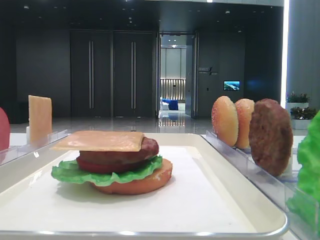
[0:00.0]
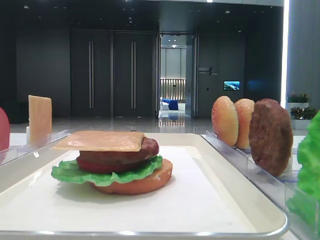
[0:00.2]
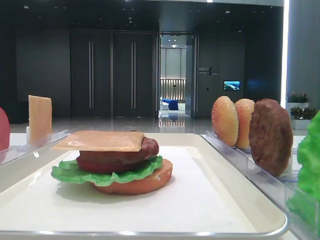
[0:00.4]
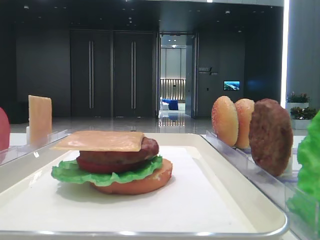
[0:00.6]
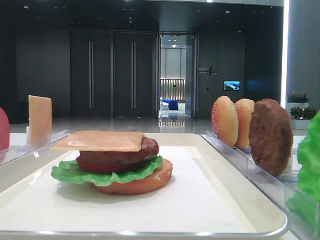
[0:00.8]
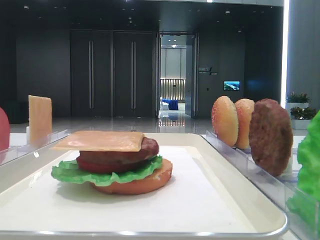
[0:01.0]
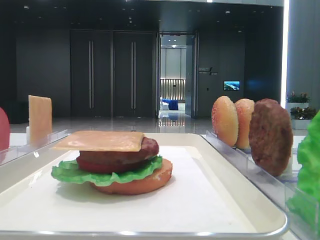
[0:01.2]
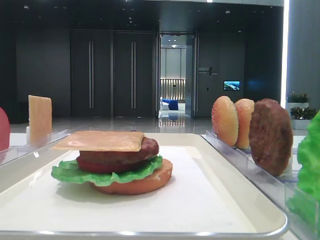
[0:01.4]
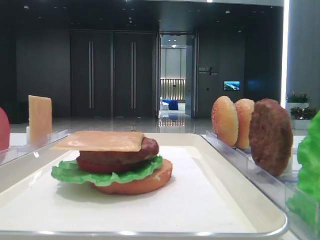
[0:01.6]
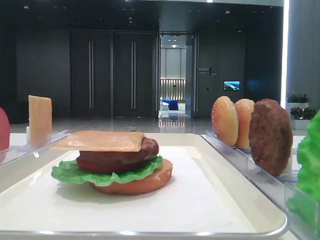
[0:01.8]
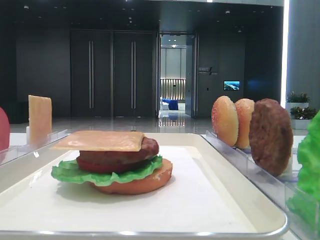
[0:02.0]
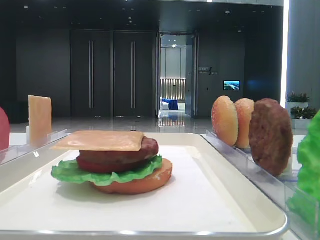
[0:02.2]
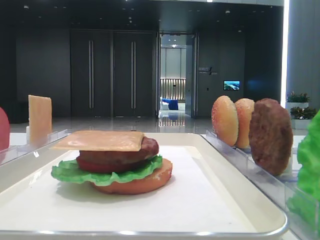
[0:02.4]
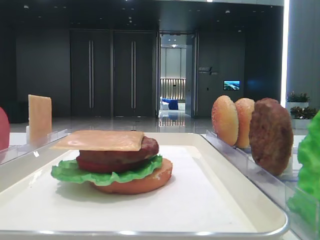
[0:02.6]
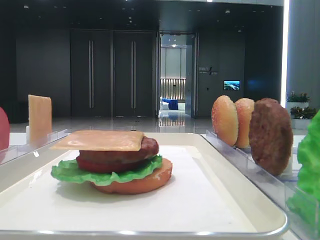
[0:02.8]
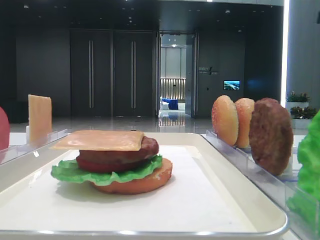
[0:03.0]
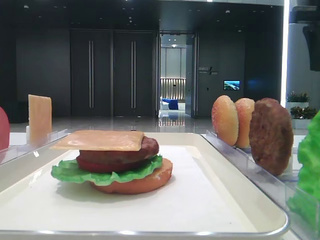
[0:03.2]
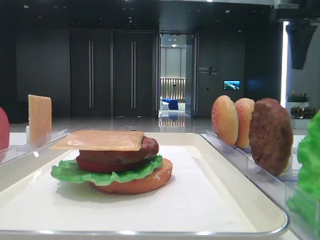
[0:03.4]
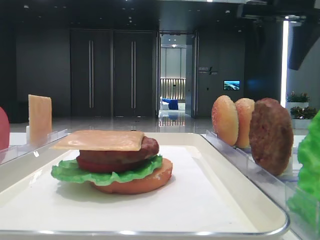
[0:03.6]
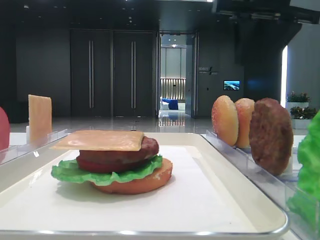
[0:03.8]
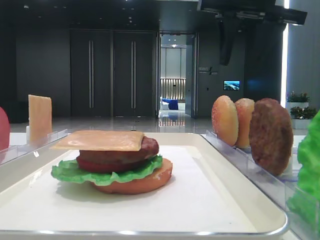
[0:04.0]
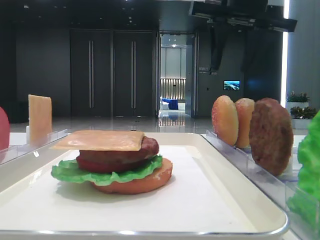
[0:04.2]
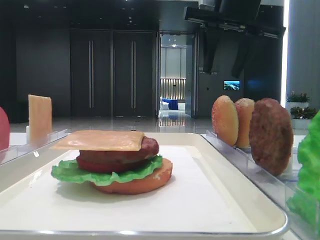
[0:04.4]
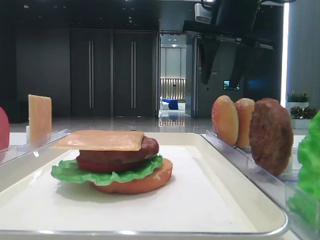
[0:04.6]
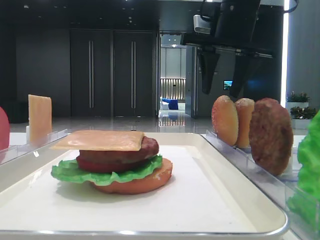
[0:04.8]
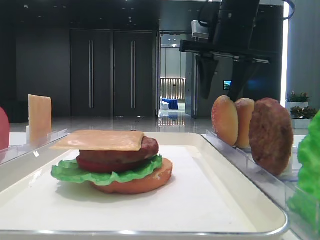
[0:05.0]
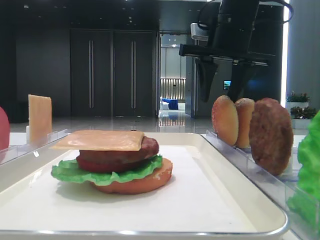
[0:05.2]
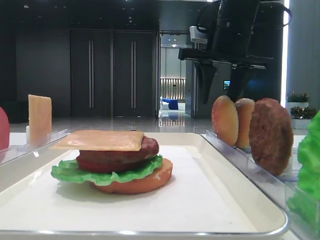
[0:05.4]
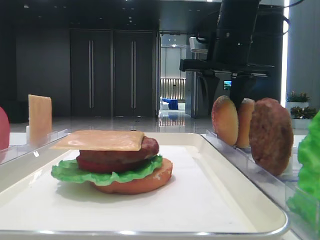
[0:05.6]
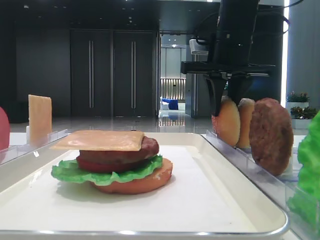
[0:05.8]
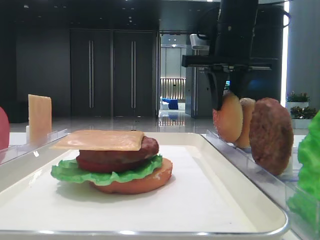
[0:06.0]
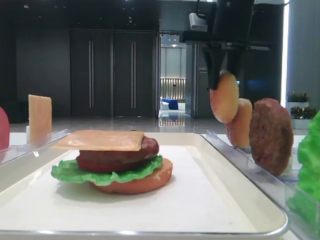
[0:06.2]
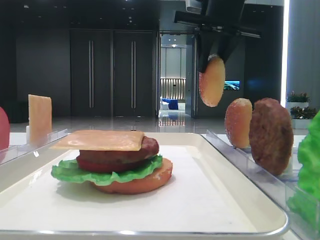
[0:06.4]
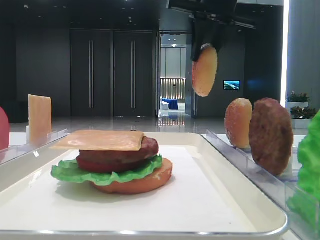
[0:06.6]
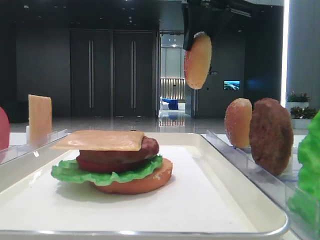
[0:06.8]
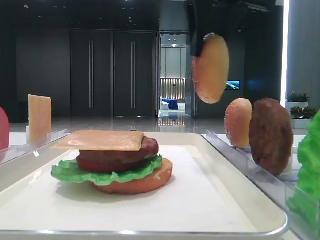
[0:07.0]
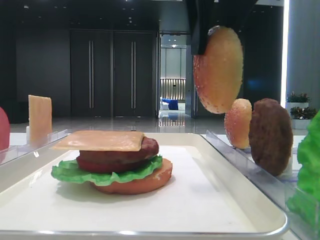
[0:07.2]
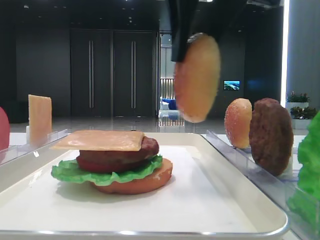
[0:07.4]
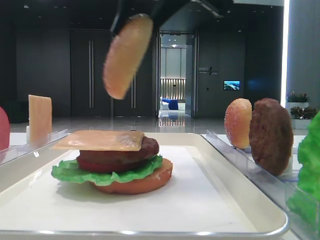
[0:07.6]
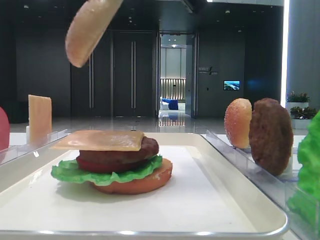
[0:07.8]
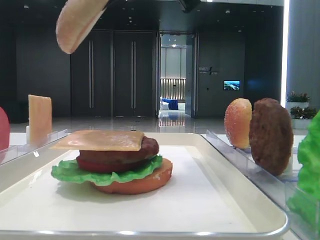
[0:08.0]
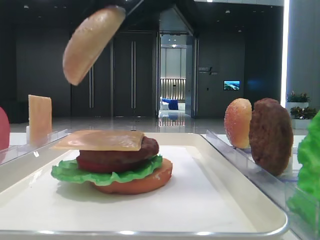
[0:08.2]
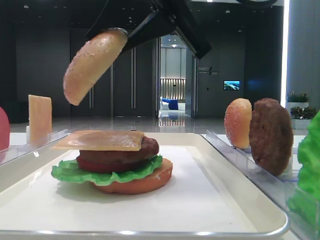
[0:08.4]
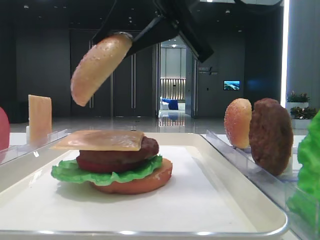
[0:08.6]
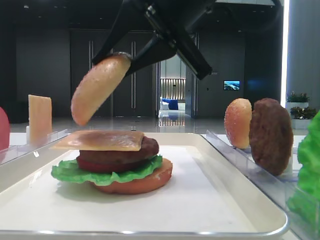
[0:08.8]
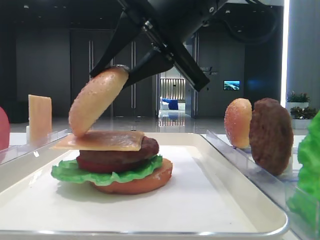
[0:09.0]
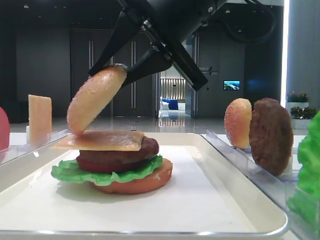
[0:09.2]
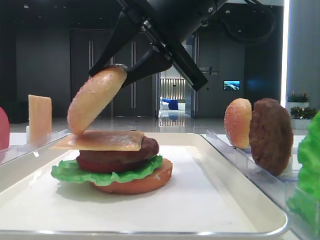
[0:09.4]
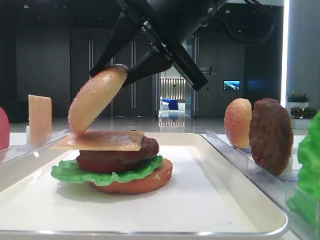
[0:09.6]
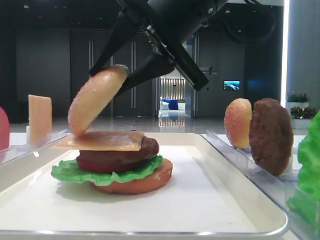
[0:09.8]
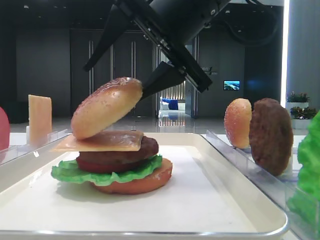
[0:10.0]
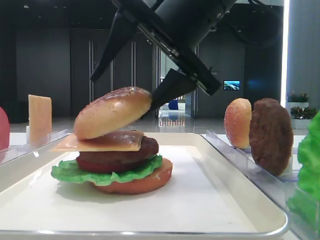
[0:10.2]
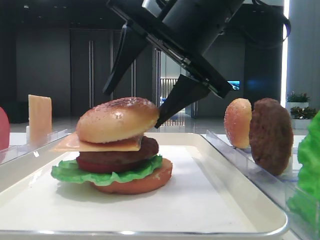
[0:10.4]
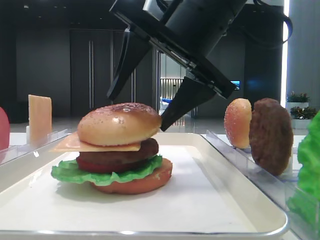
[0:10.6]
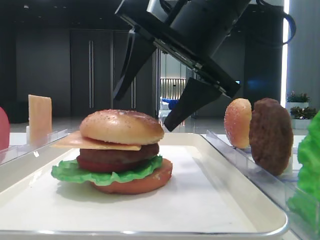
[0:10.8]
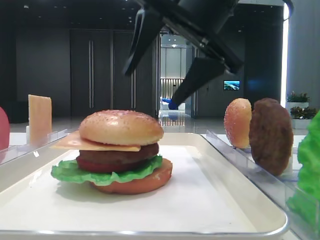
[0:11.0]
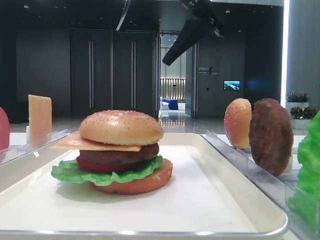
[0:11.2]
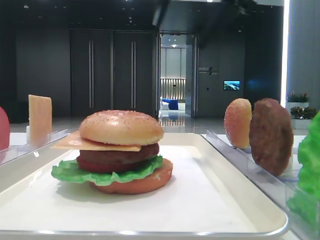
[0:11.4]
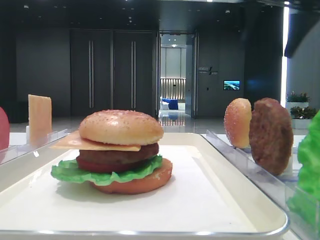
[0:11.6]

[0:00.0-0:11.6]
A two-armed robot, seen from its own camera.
Step, 0:00.0 to 0:05.6: Pick up the top bread slice with the right hand.
Step, 0:05.8 to 0:10.8: Place the top bread slice on the cheese with the right hand.
0:02.8 to 0:04.4: The right gripper travels to the left by approximately 20 cm.
0:04.4 to 0:05.8: The right gripper moves downward, some 5 cm, and closes its fingers.
0:05.8 to 0:07.2: The right gripper goes roughly 20 cm backward and upward.
0:07.2 to 0:08.8: The right gripper goes approximately 5 cm downward.
0:08.8 to 0:10.2: The right gripper opens.
0:10.2 to 0:11.6: The right gripper shifts approximately 20 cm to the right, upward and forward.

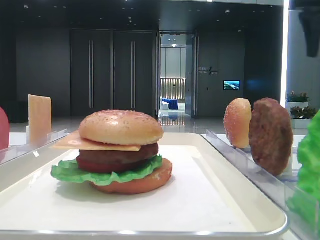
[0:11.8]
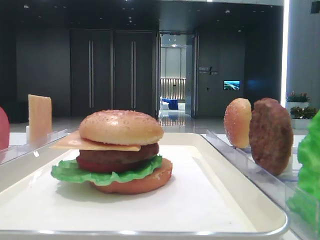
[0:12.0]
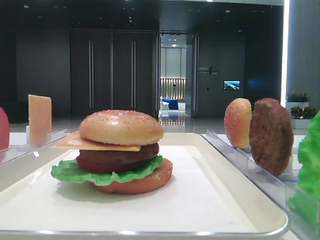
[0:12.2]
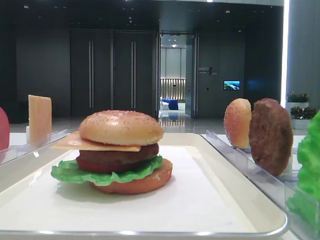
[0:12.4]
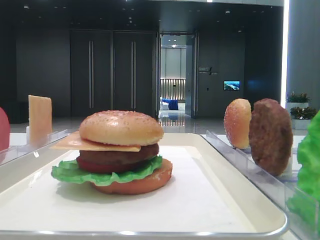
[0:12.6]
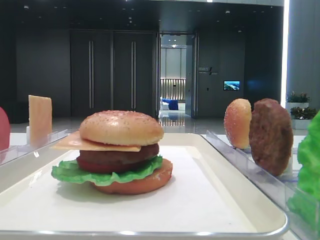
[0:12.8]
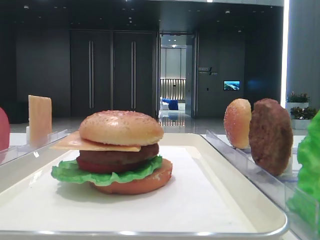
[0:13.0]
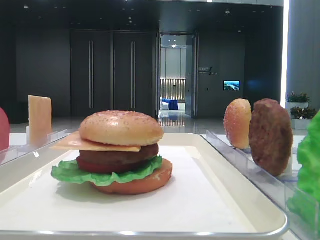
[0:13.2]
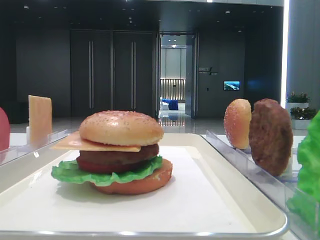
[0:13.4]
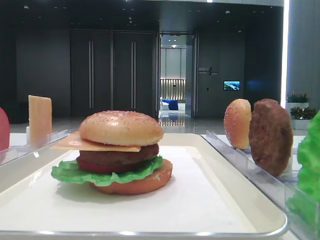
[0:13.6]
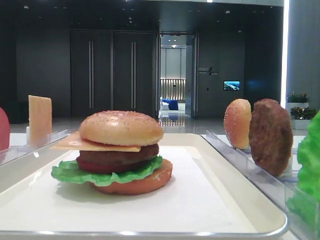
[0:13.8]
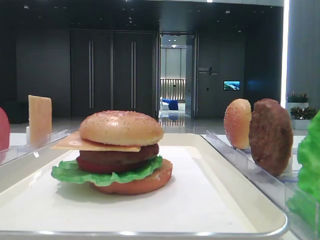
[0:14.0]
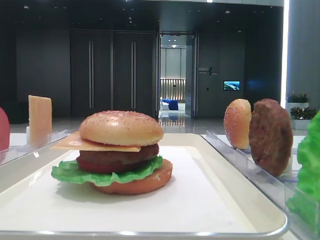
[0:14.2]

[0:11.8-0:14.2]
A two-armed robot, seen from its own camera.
0:11.8 to 0:13.0: The right gripper goes some 35 cm backward.

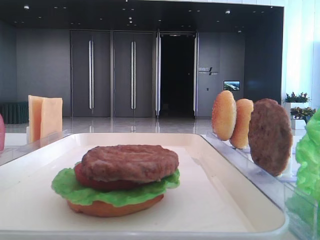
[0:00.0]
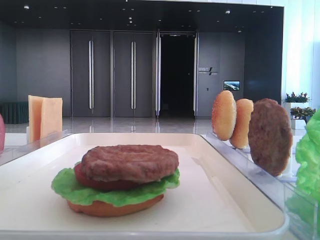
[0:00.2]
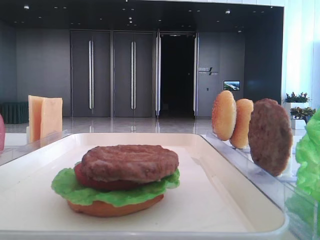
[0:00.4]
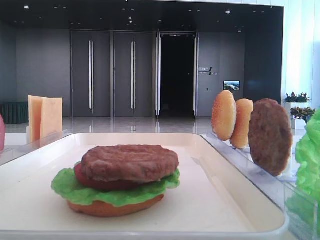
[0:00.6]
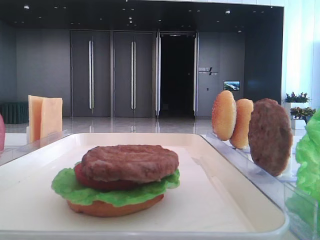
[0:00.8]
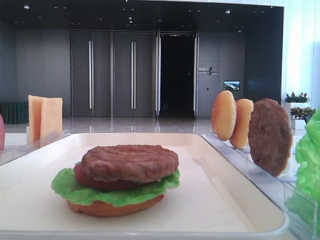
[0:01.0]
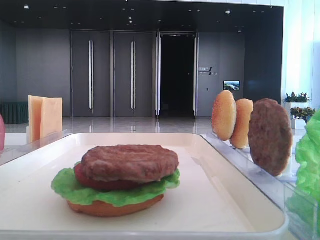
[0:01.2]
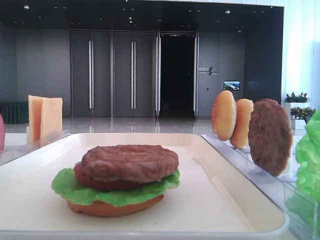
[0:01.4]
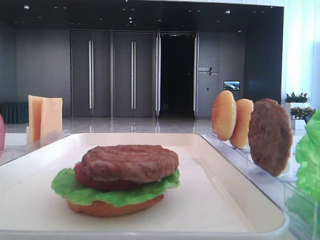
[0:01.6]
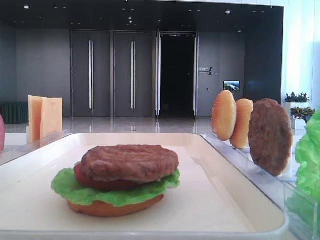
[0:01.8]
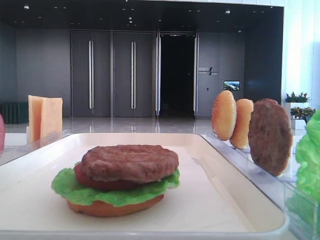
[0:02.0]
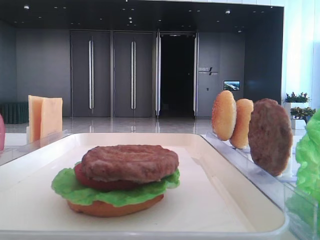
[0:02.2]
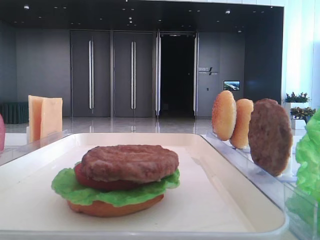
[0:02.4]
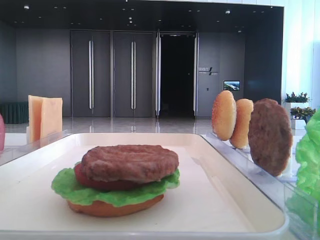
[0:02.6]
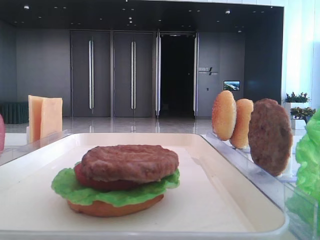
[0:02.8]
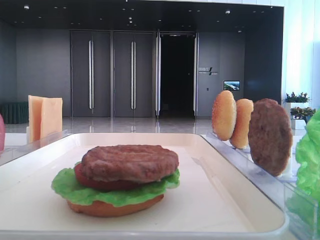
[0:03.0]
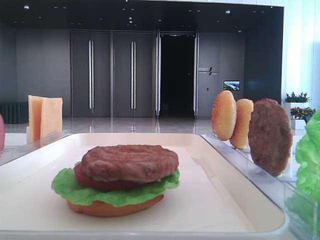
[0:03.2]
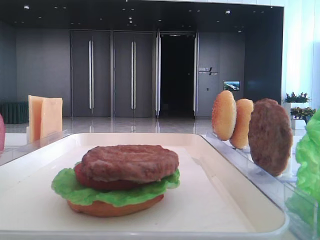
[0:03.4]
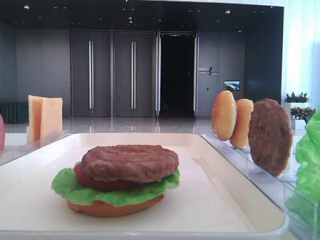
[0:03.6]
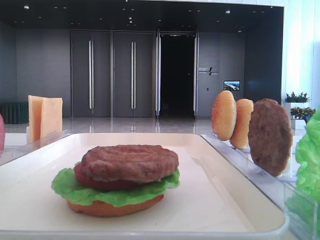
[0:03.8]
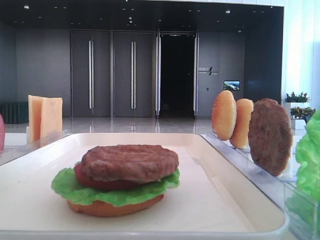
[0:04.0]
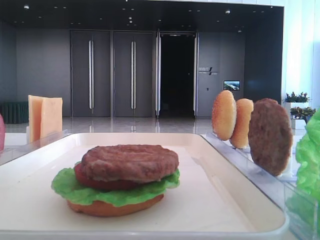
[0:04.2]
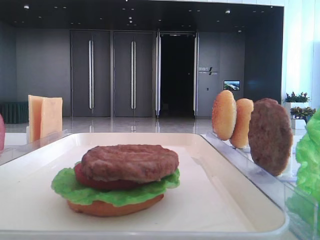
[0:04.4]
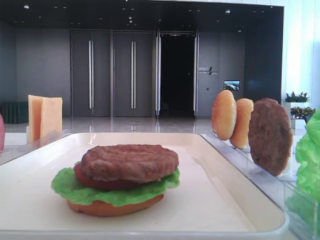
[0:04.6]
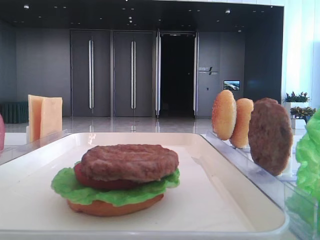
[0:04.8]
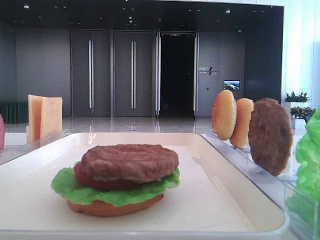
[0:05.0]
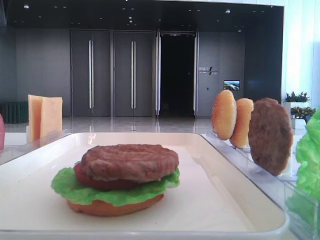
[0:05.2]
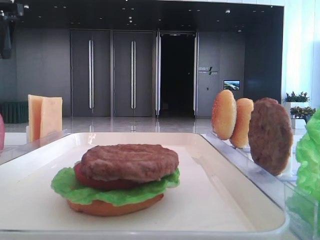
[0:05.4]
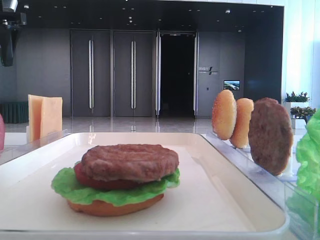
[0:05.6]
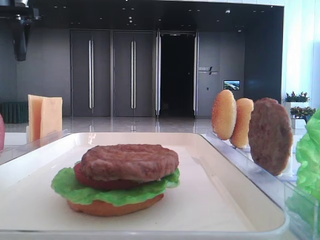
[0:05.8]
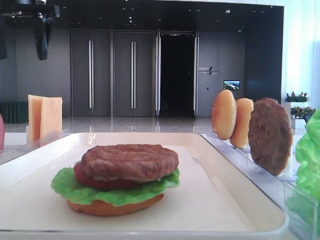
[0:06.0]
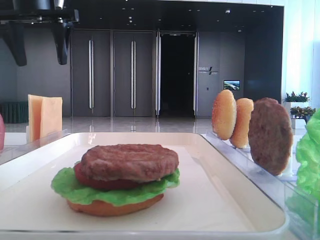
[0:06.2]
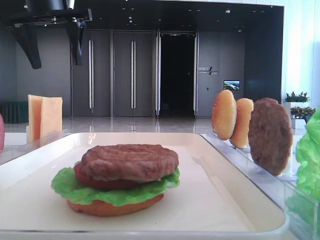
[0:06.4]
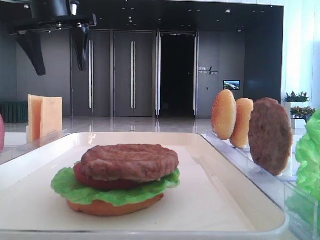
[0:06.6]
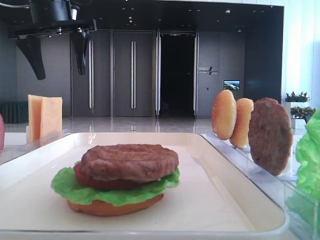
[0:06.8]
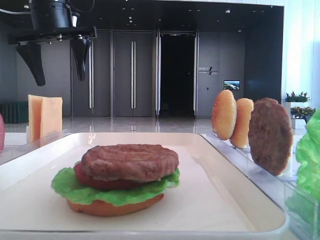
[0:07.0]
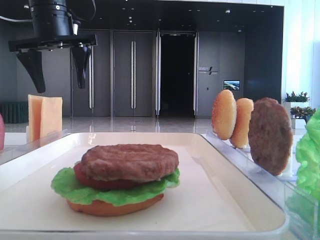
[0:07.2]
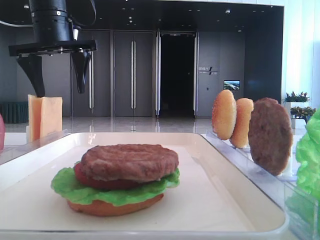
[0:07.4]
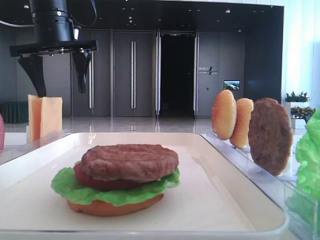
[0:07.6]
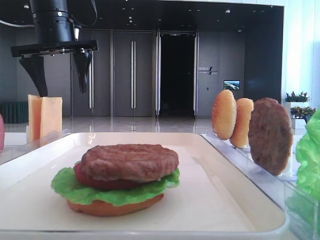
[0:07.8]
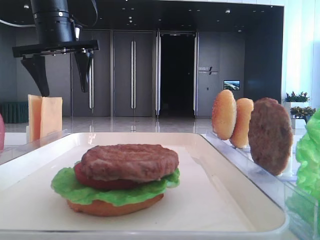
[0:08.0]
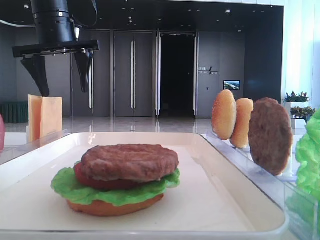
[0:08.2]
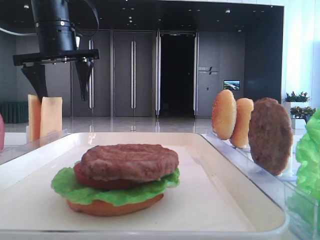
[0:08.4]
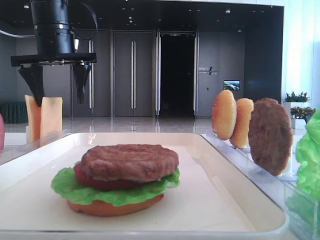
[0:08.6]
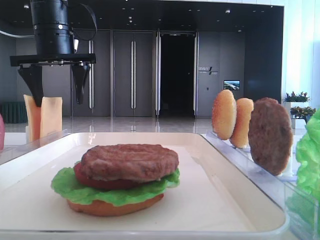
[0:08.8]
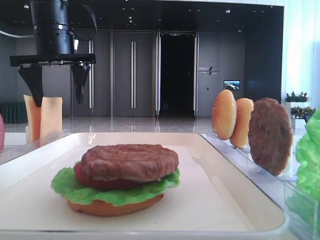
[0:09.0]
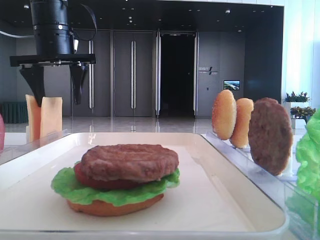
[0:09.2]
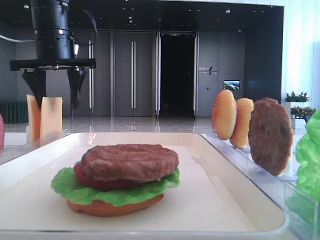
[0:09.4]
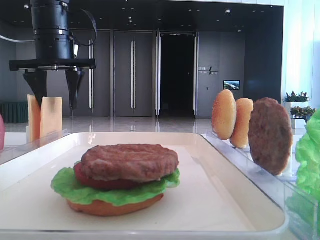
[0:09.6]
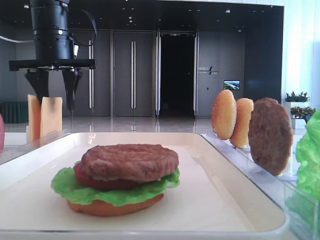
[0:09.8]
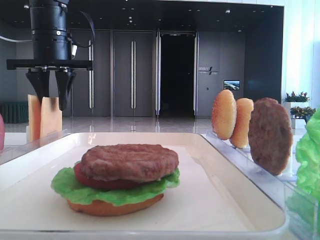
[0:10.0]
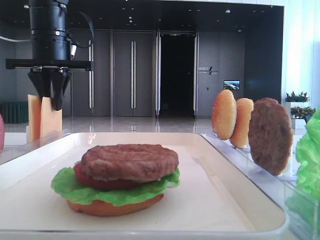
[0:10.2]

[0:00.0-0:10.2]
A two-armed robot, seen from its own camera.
Step, 0:00.0 to 0:10.2: Pick up the cheese slice with the left hand.
0:04.4 to 0:05.8: The left gripper heads forward, covering some 25 cm.
0:05.8 to 0:07.2: The left gripper shifts some 10 cm to the right.
0:07.2 to 0:08.8: The grippers make only small movements.
0:08.8 to 0:10.2: The left gripper closes.
